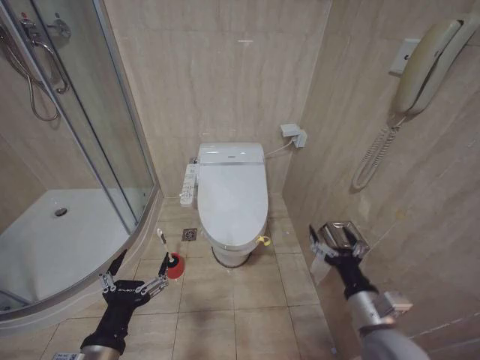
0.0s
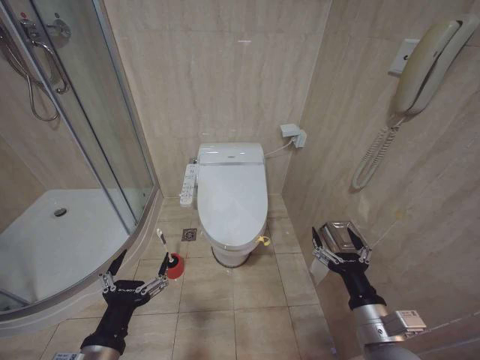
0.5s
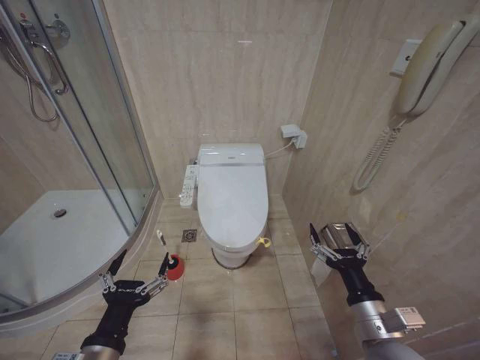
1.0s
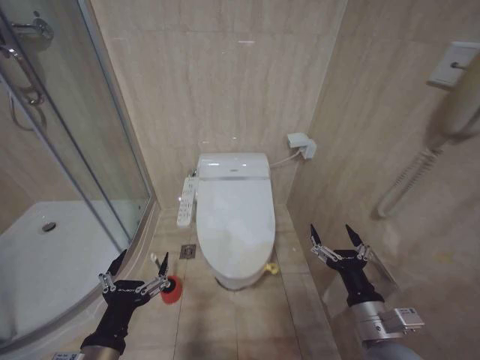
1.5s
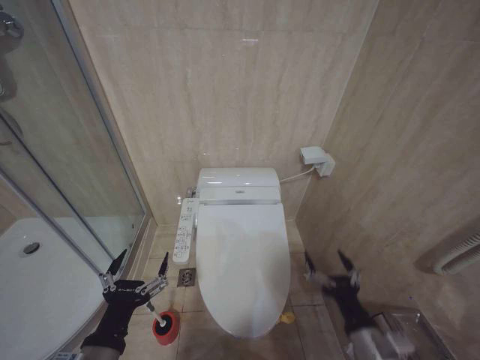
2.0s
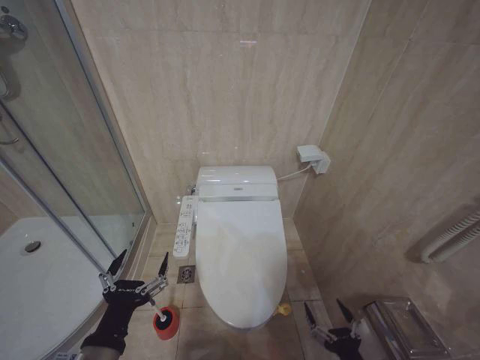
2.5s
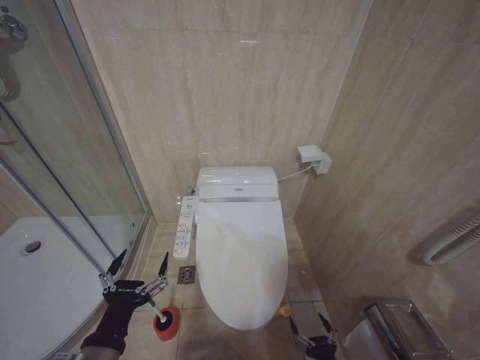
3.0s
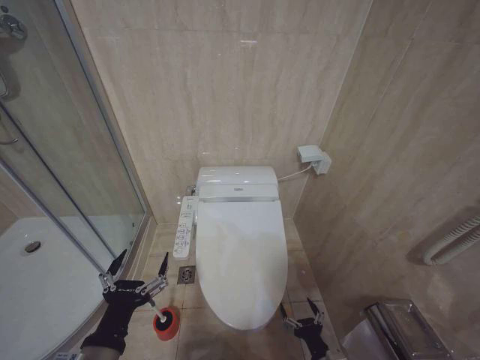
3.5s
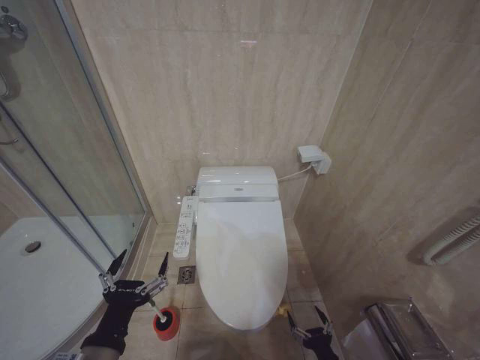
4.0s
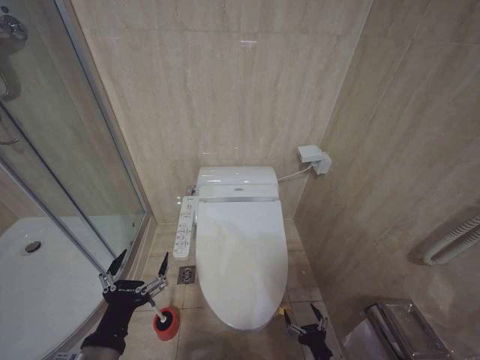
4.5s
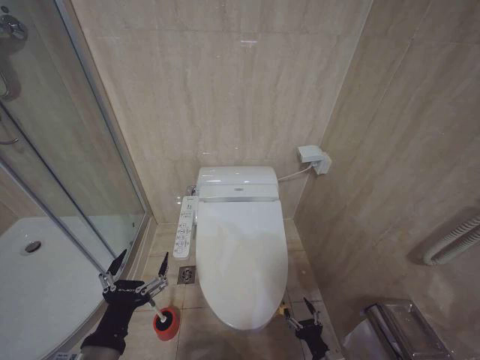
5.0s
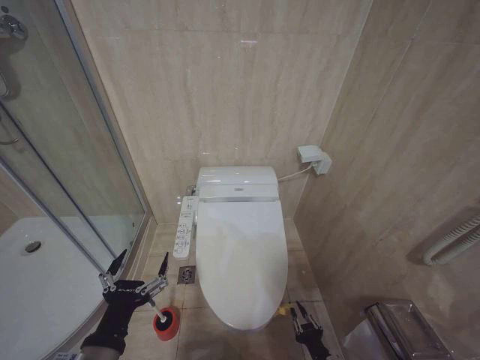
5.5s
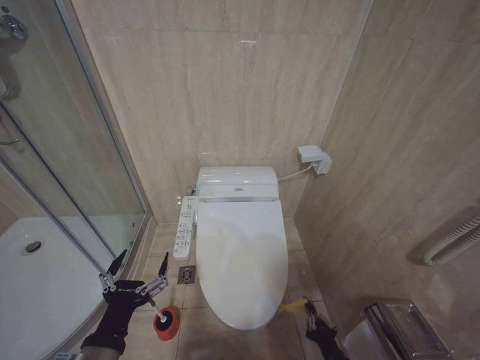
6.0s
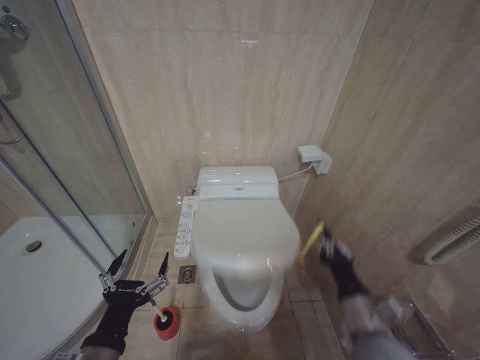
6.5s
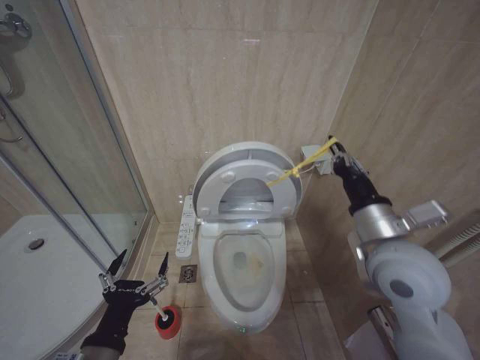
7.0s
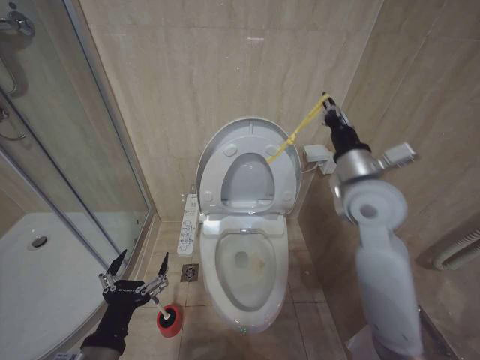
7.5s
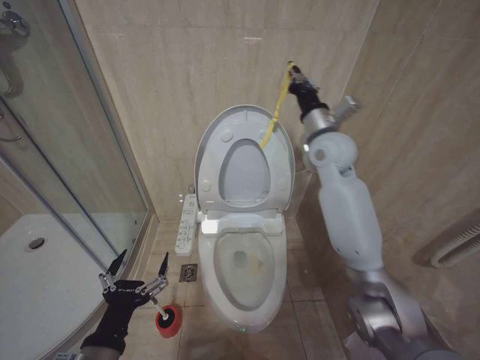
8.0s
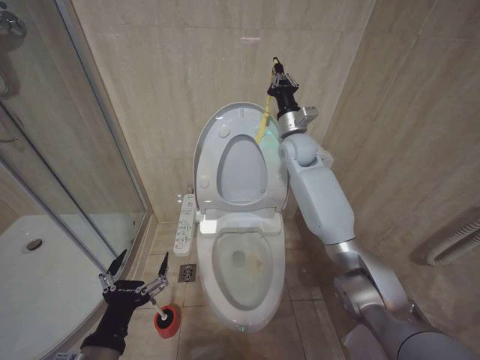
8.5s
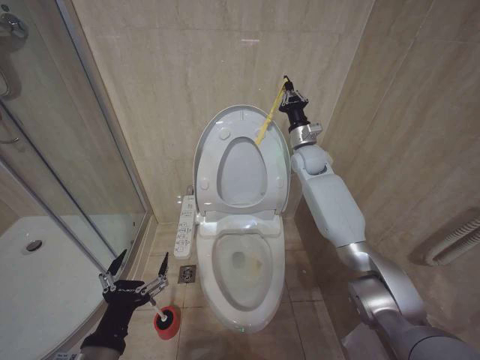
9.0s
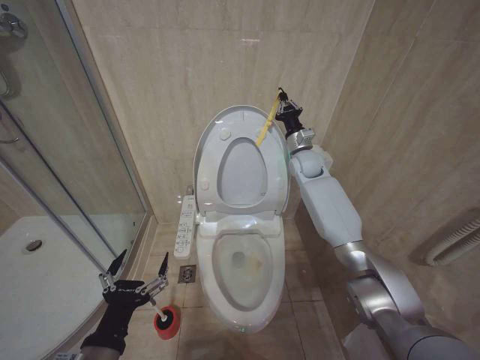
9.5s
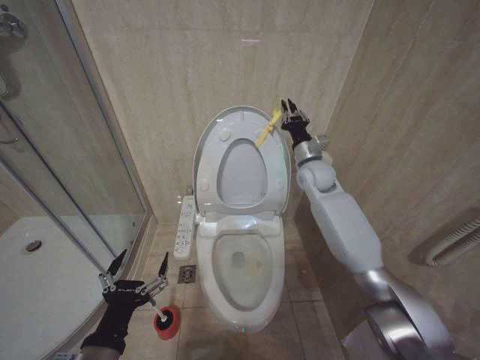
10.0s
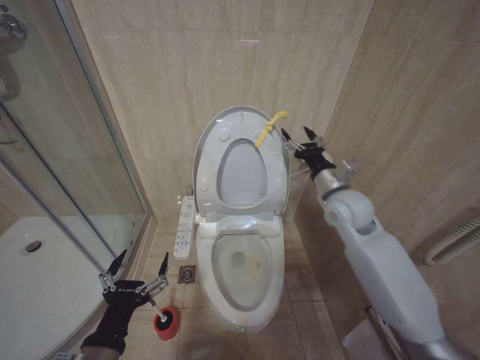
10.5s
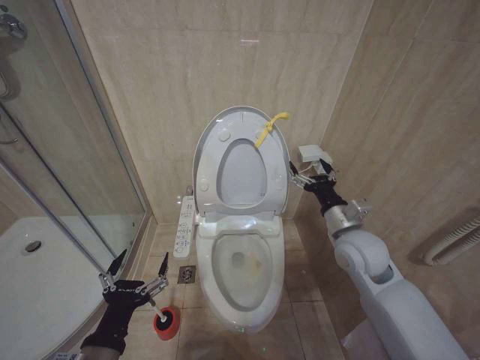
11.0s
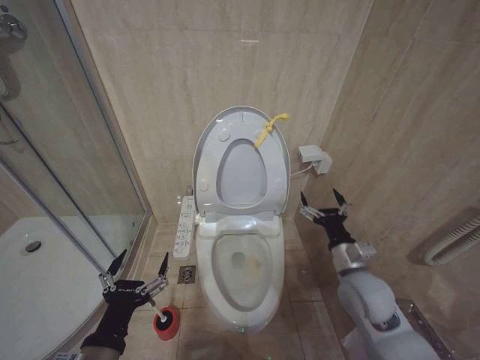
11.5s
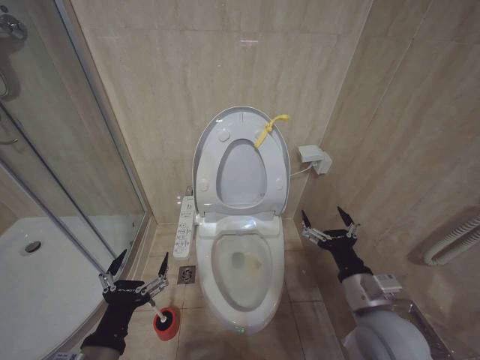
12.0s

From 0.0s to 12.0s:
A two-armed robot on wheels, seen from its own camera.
Task of the whole recording: Open the toilet lid, clean the toilet bowl with a toilet brush, close the toilet lid, and flush.
From 2.0s to 4.0s: The right gripper moves downward, roughly 20 cm.
From 6.0s to 8.0s: The right gripper travels upward and forward by some 60 cm.
From 8.0s to 10.0s: The right gripper moves downward and forward, about 15 cm.
From 10.0s to 12.0s: The right gripper moves backward and downward, about 35 cm, and opens its fingers.

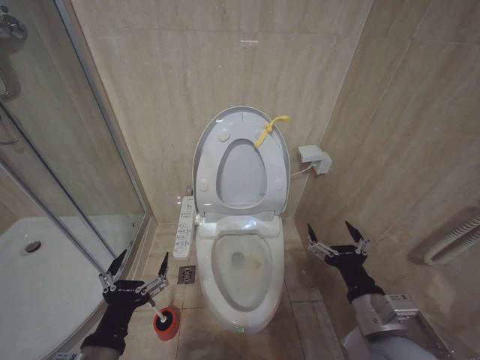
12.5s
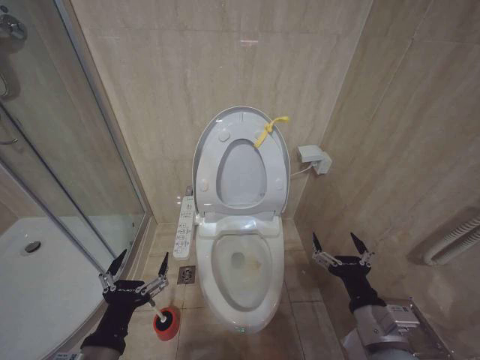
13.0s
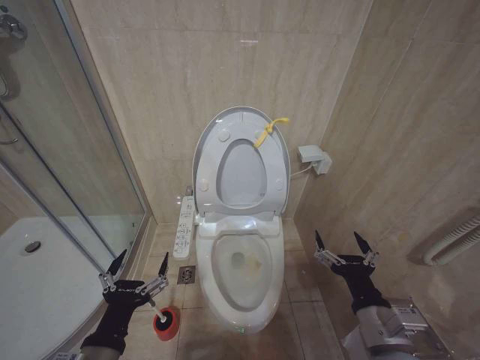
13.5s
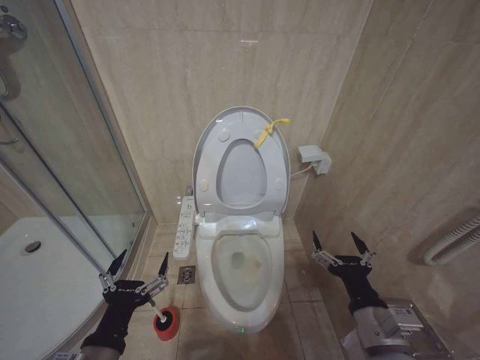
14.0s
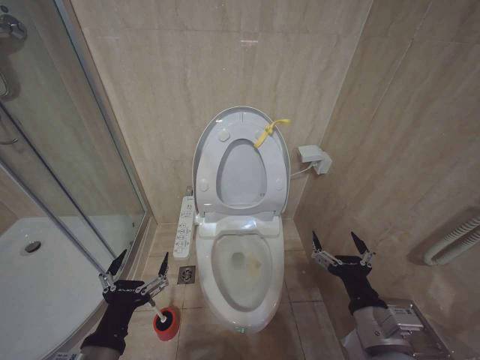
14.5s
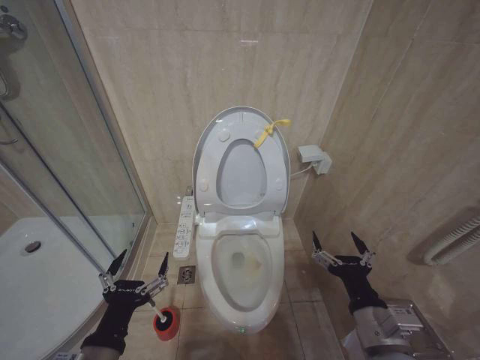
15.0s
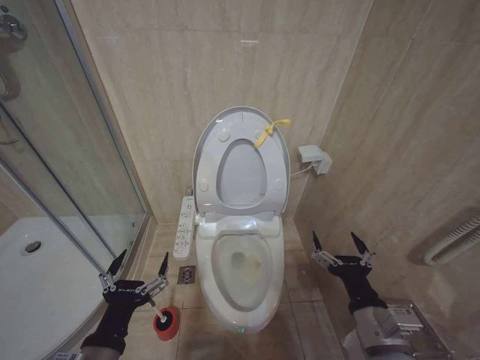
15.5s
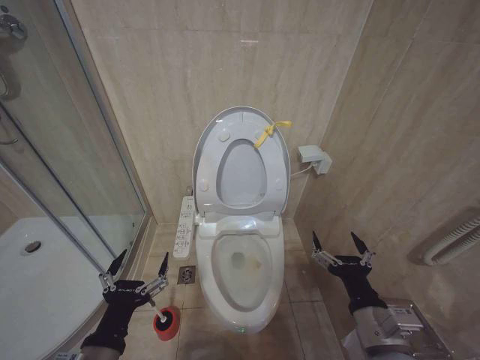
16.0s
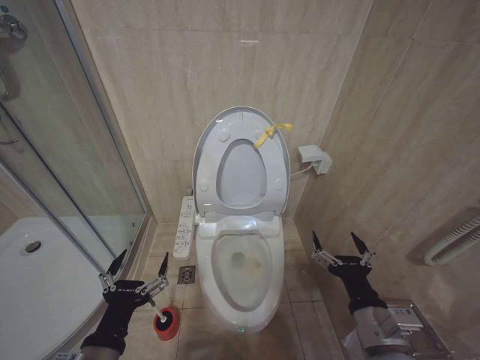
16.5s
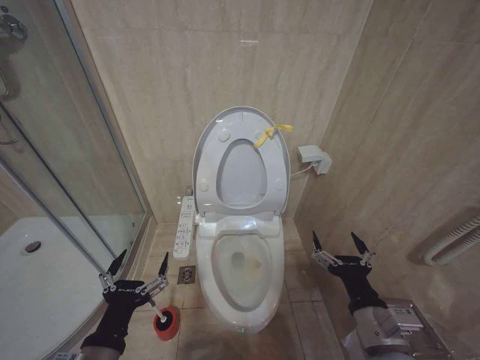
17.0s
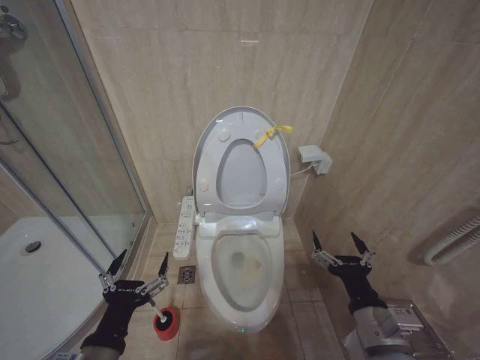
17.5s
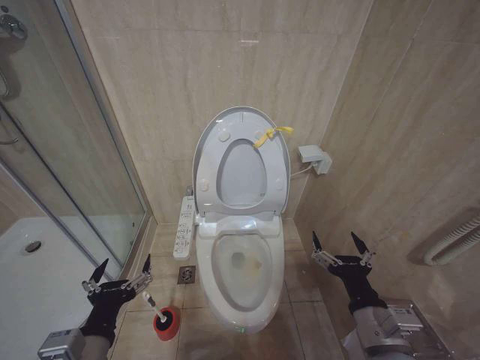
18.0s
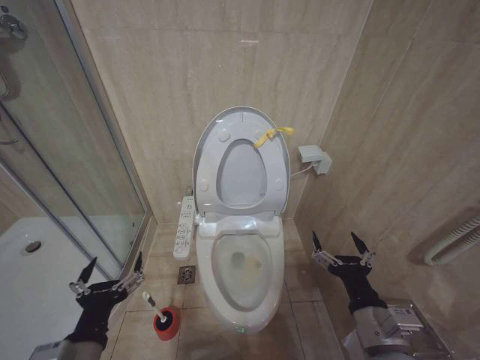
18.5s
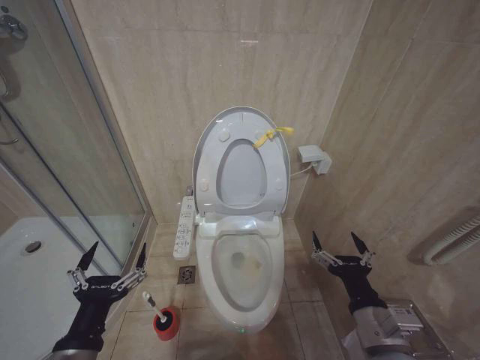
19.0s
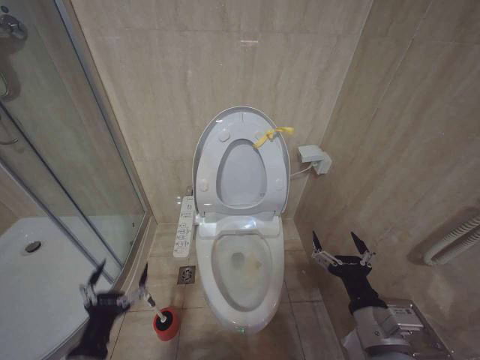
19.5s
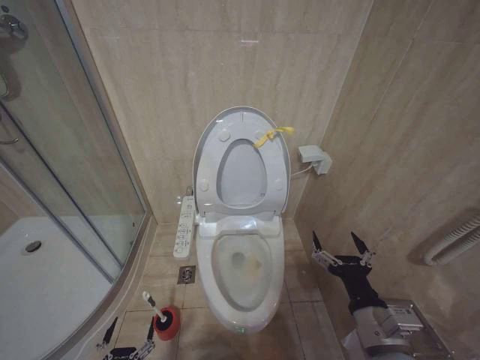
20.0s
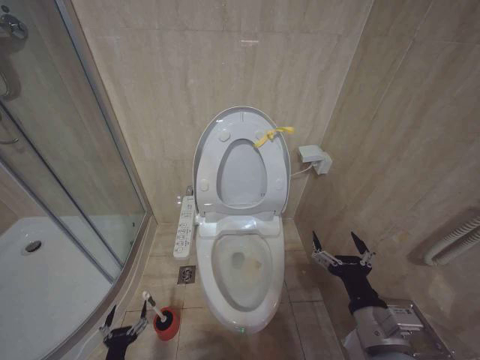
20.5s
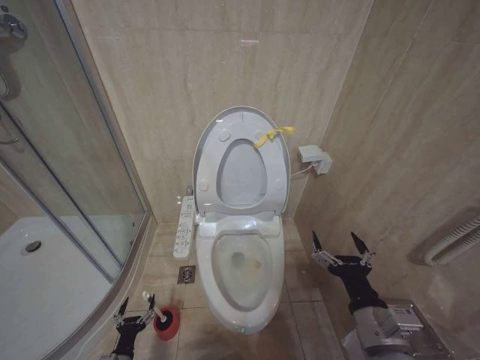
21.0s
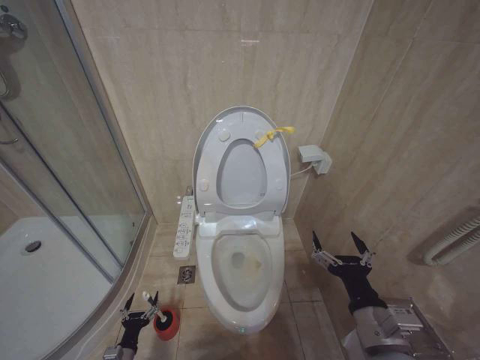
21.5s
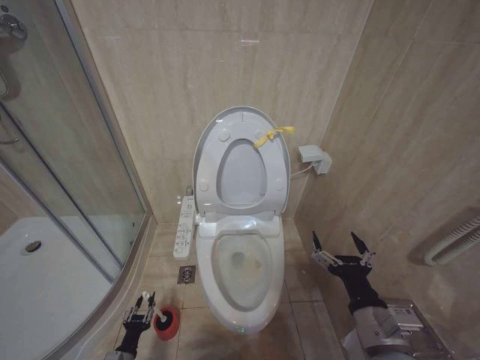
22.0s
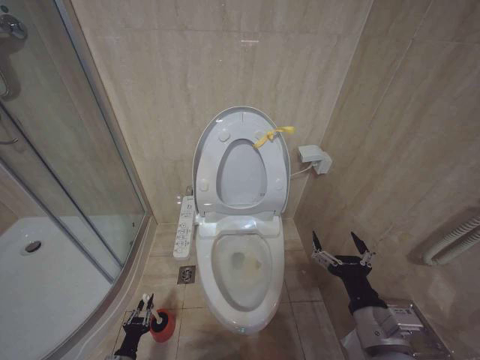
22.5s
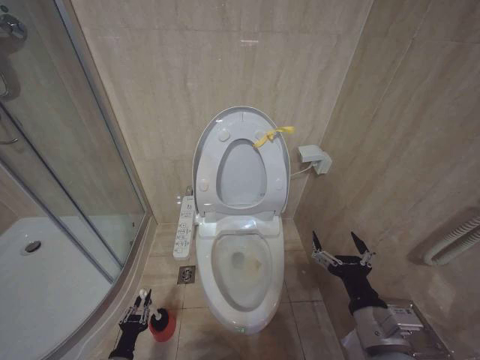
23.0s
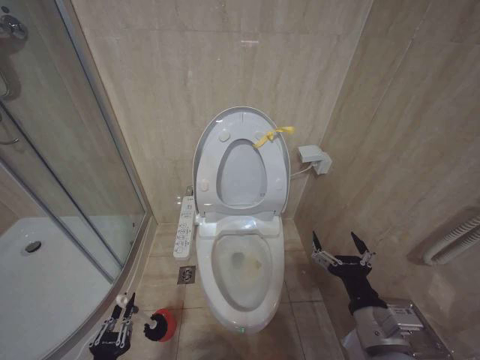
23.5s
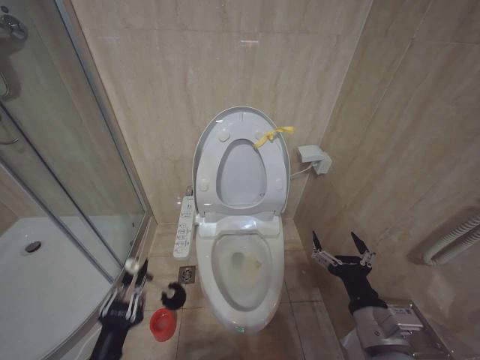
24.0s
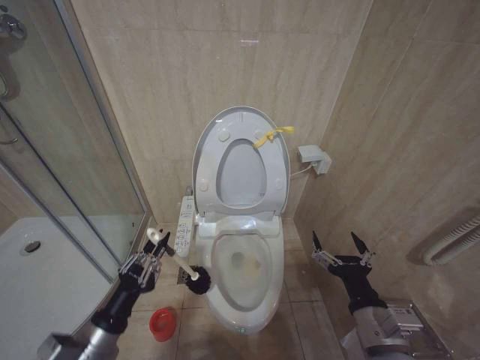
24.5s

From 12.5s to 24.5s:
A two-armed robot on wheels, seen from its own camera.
Task of the whole recording: Open the toilet lid, clean the toilet bowl with a toilet brush, close the toilet lid, and flush.
From 12.5s to 14.5s: The grippers make only small movements.
From 14.5s to 16.5s: Both grippers stay about where they are.
From 16.5s to 18.5s: The grippers move only a little.
From 18.5s to 20.5s: The left gripper shifts about 30 cm downward.
From 20.5s to 22.5s: The left gripper moves downward and forward, some 10 cm, and closes.
From 22.5s to 24.5s: The left gripper goes approximately 30 cm upward.

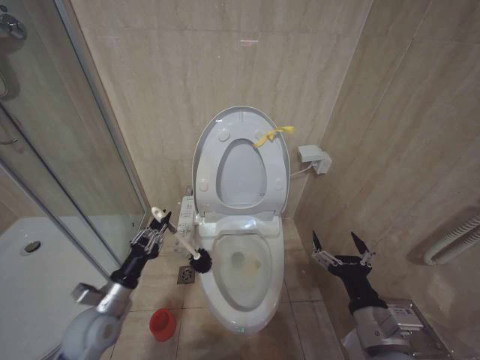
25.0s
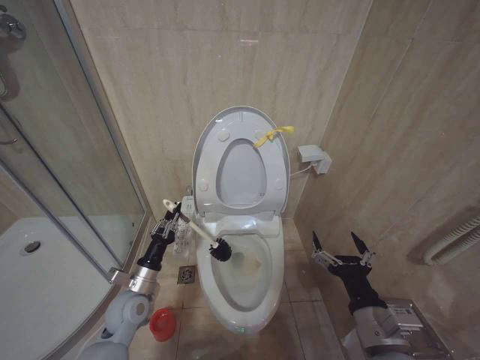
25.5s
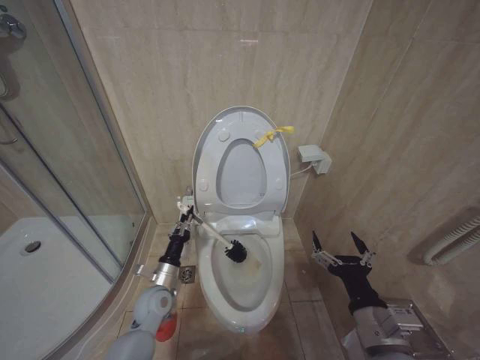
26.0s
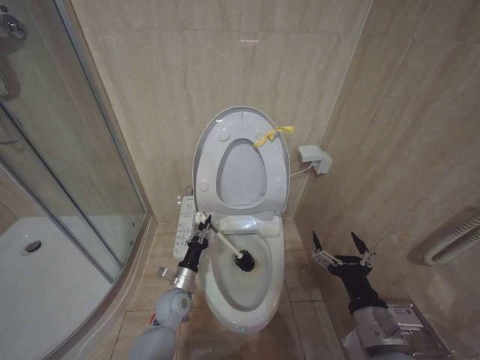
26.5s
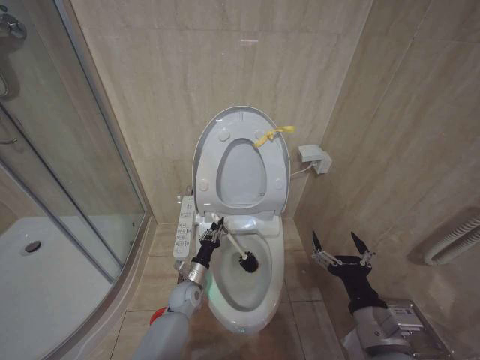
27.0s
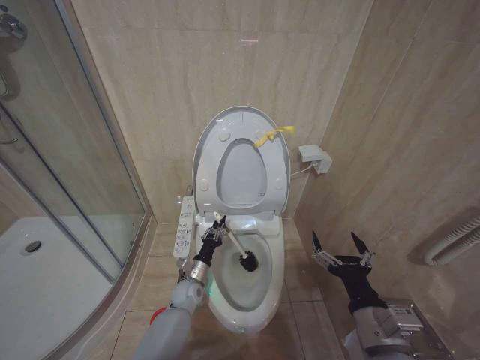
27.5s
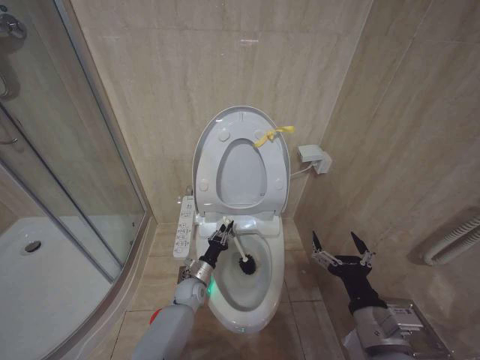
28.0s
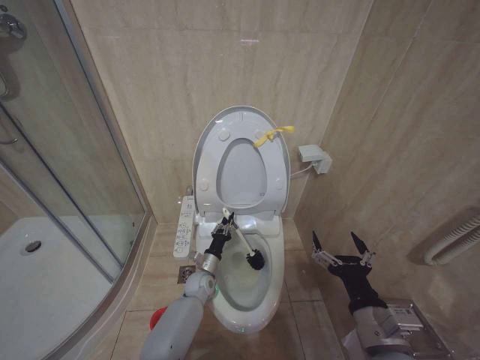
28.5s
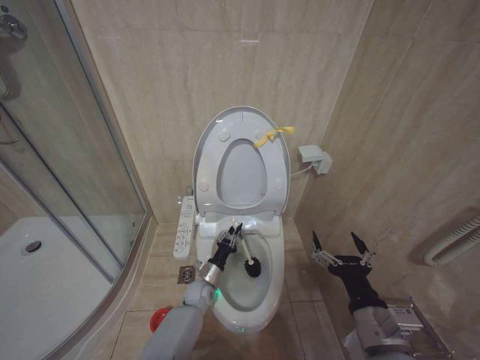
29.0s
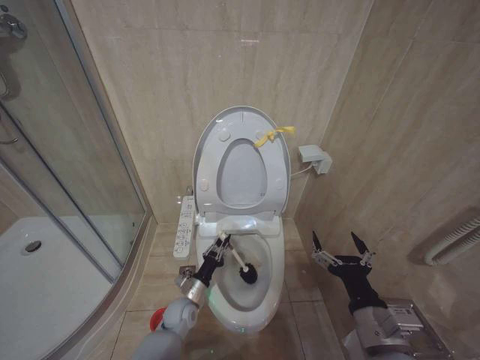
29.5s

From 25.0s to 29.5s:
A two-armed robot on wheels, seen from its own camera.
Task of the whole recording: Open the toilet lid, clean the toilet bowl with a toilet brush, close the toilet lid, and flush.
From 25.0s to 27.0s: The left gripper goes roughly 25 cm to the right, downward and forward.
